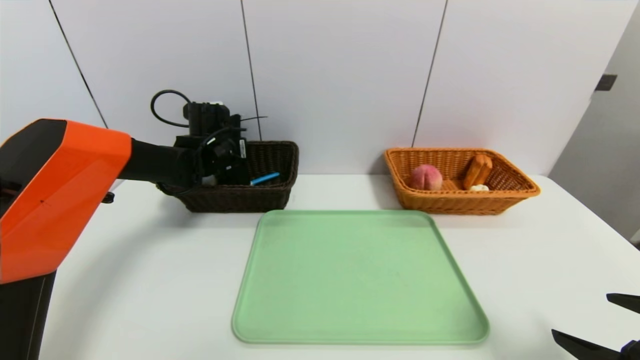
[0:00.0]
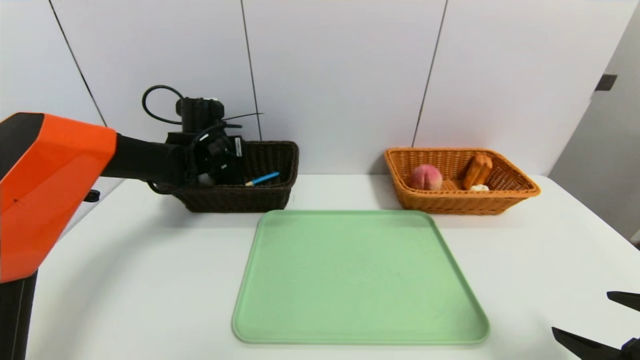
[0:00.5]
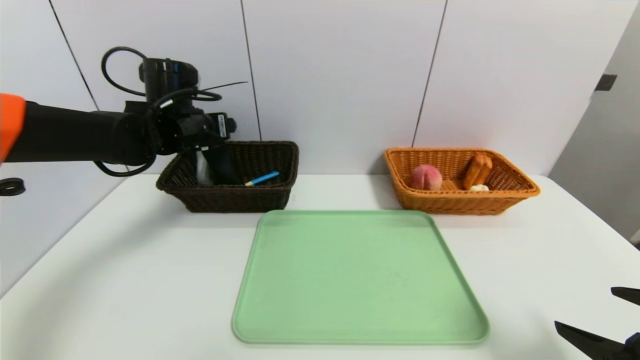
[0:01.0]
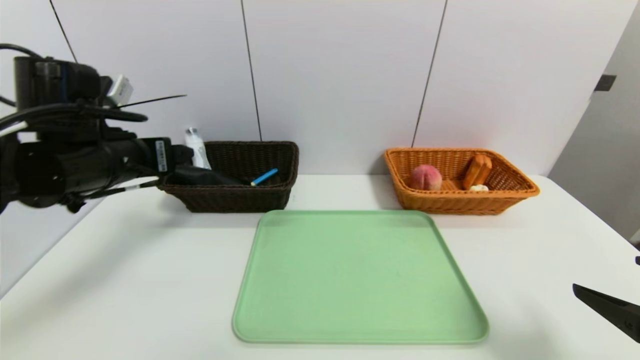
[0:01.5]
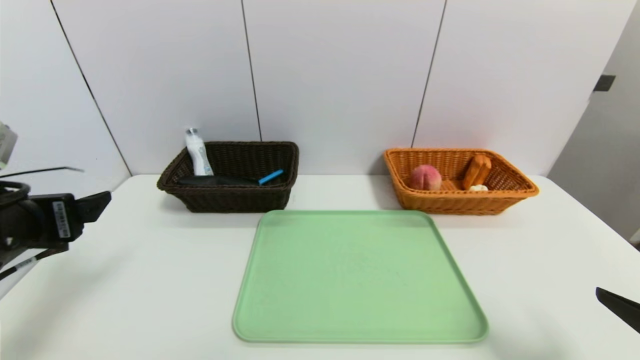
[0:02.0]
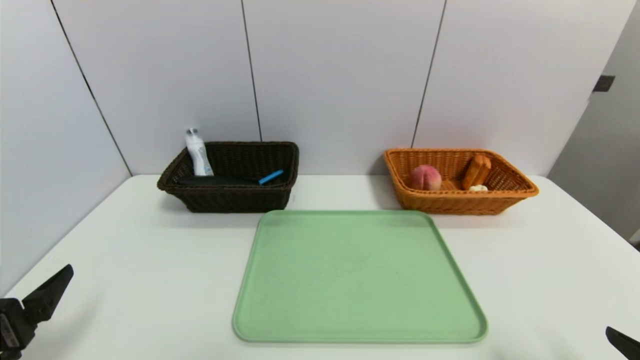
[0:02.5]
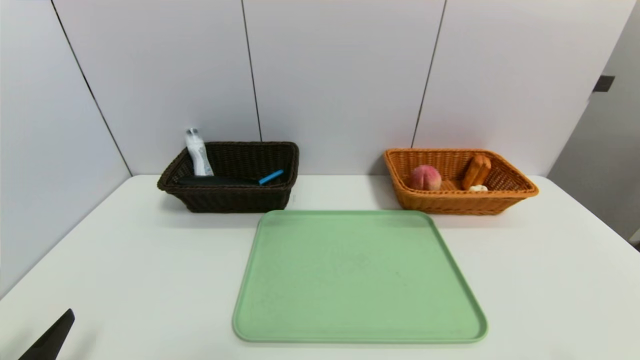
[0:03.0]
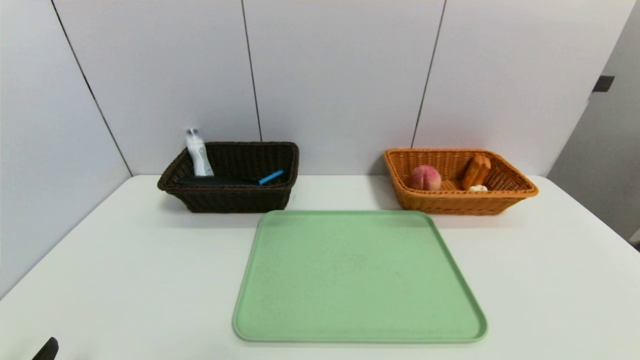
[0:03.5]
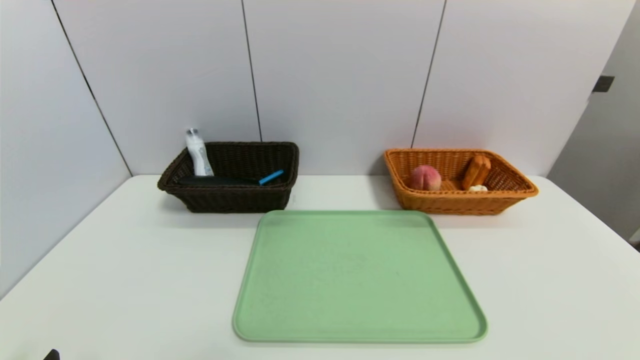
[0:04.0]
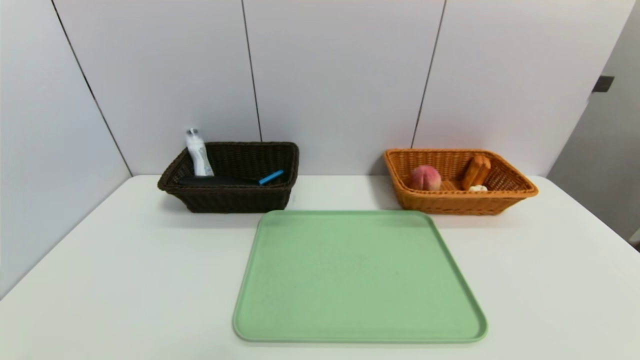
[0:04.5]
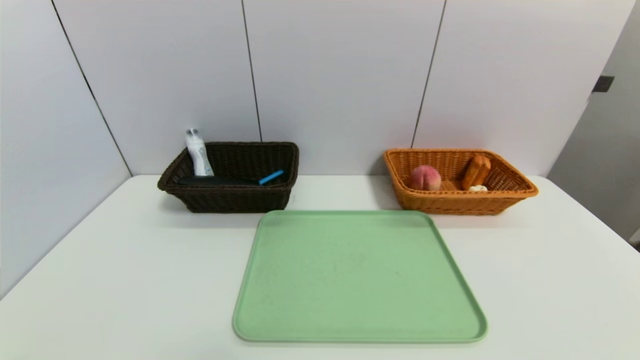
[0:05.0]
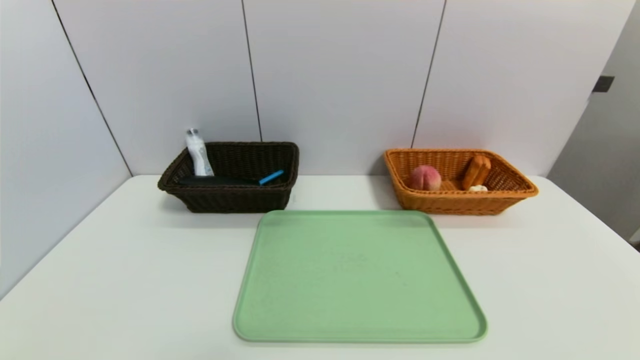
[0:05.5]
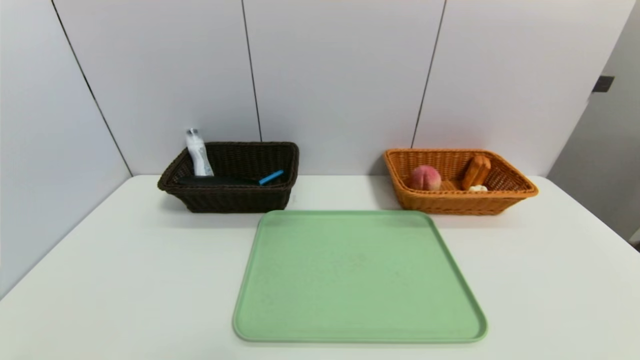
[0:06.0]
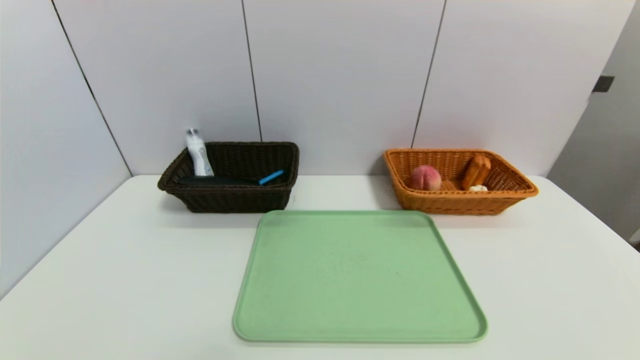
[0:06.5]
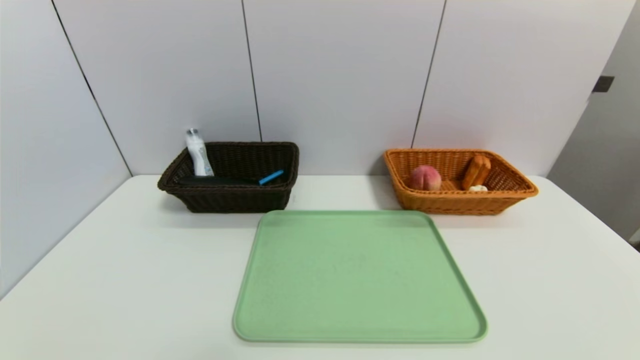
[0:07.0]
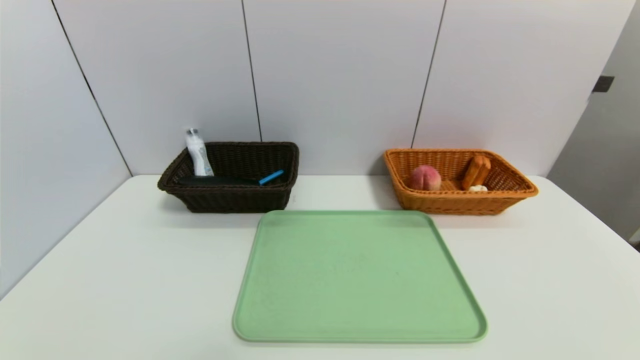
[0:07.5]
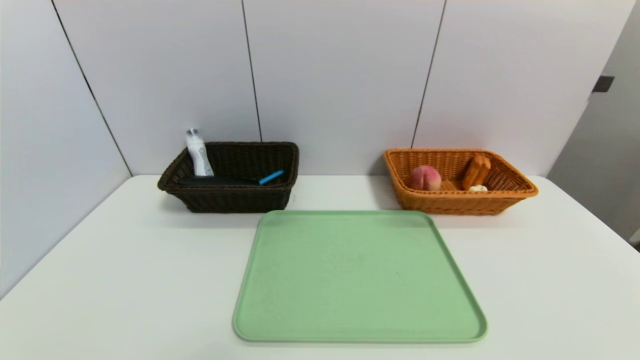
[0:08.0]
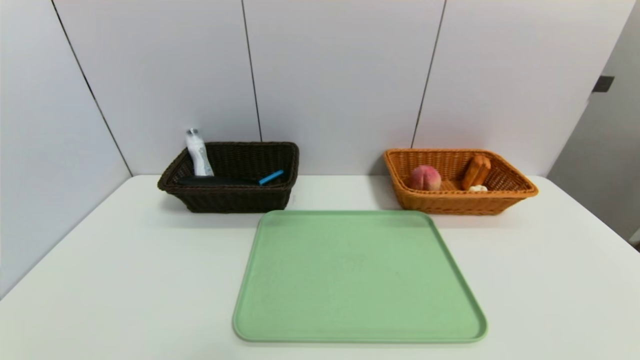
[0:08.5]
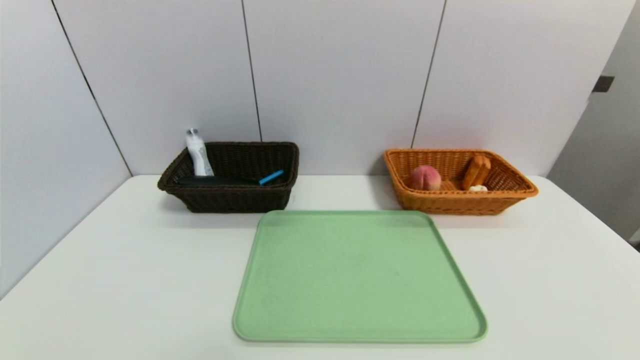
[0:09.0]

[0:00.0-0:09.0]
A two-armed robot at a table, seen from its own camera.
Task of the whole recording: place the food in the right basket with the right gripper, and place the non food items in the left basket with the left gripper.
0:00.0 to 0:02.0: The left gripper moves backward, approximately 30 cm, and opens.
0:02.0 to 0:04.5: The left gripper heads backward and downward, covering roughly 25 cm; the right gripper goes about 15 cm backward and downward.

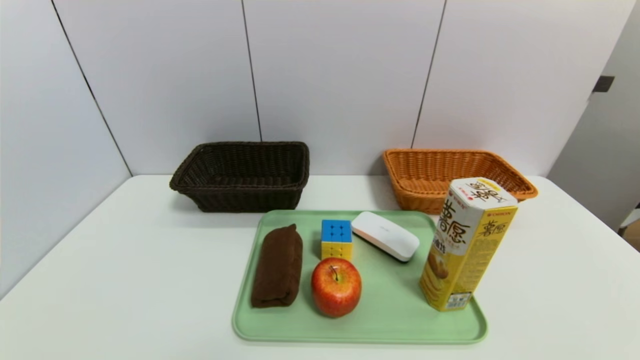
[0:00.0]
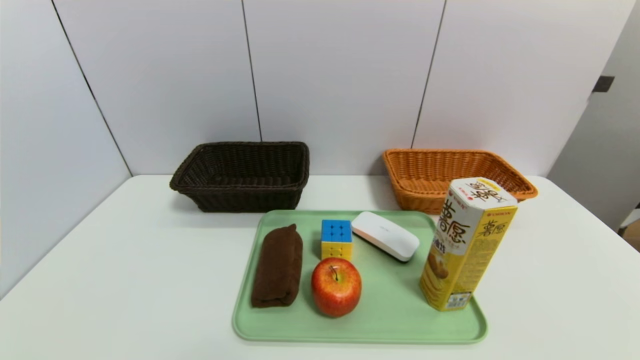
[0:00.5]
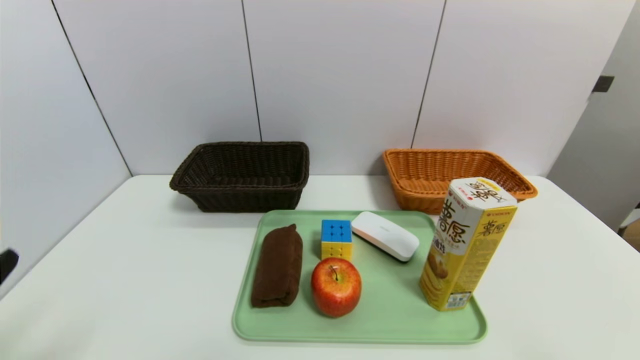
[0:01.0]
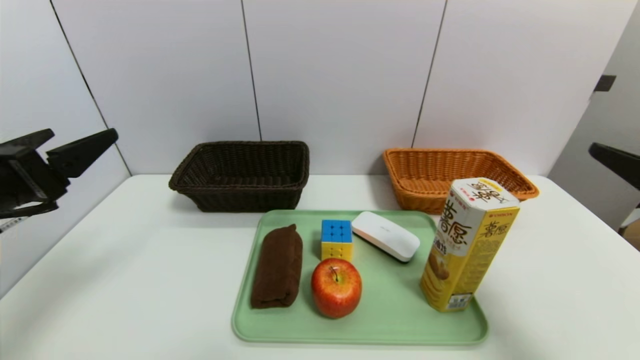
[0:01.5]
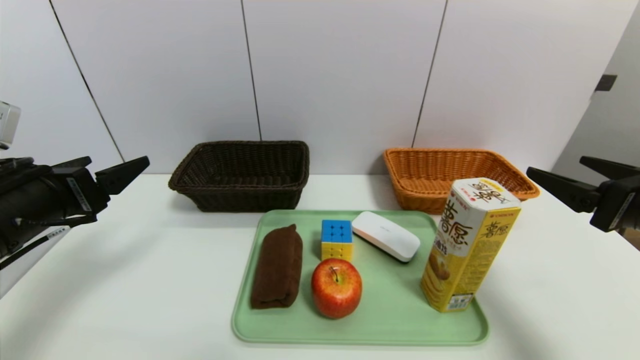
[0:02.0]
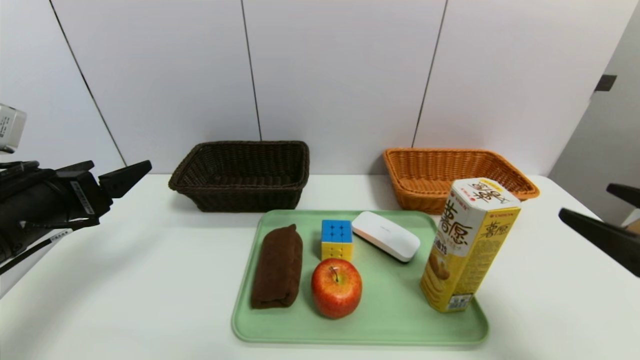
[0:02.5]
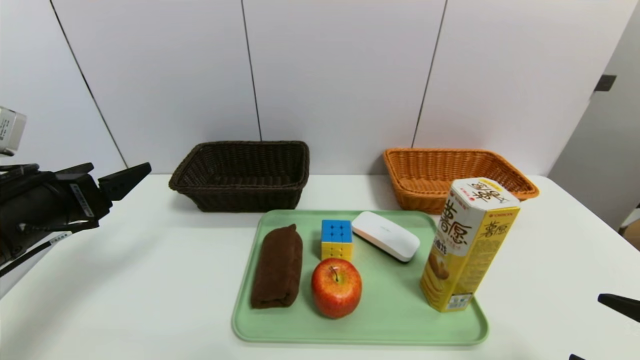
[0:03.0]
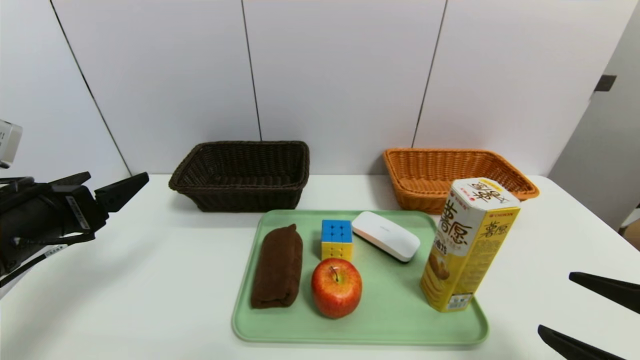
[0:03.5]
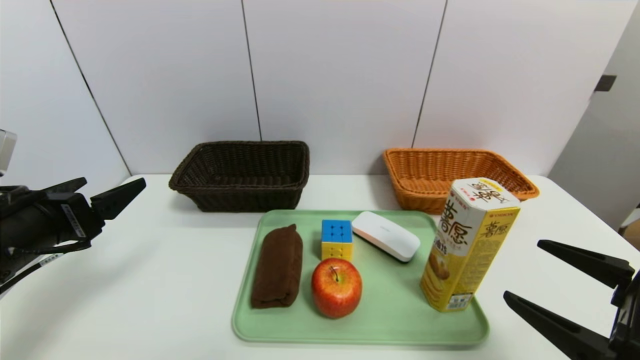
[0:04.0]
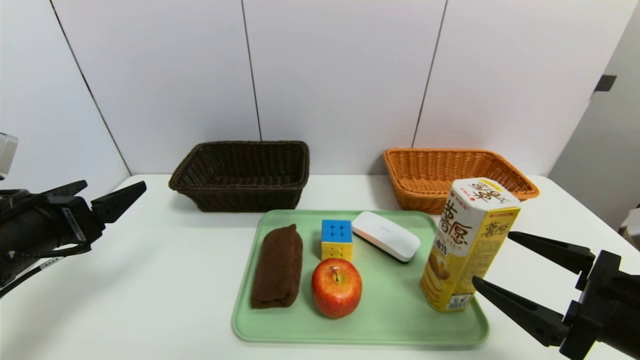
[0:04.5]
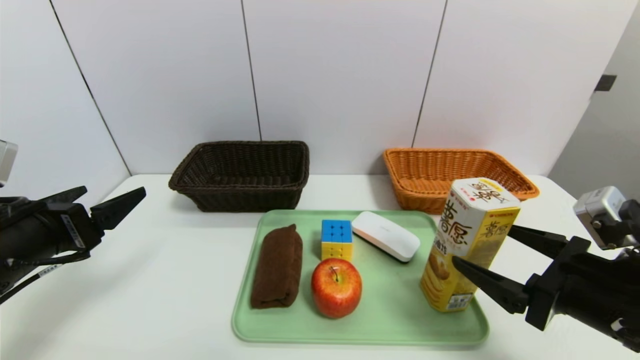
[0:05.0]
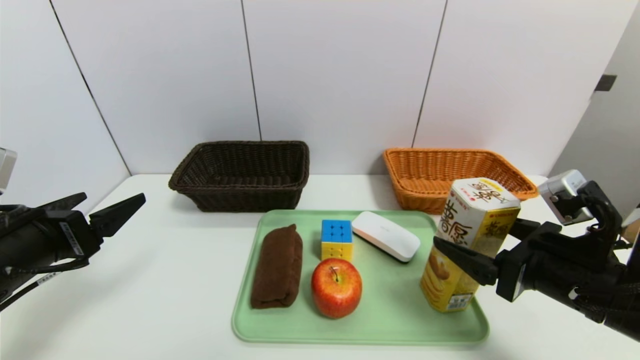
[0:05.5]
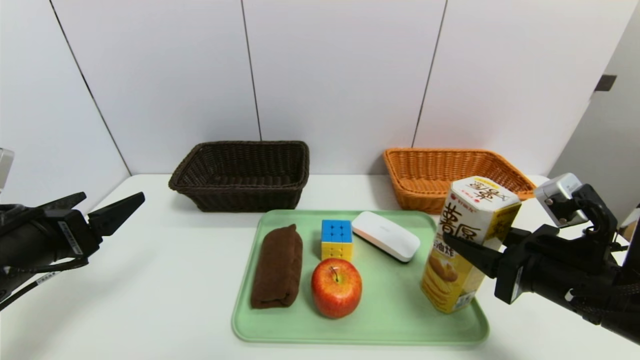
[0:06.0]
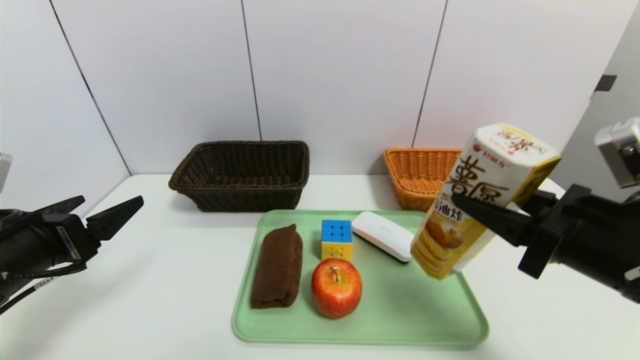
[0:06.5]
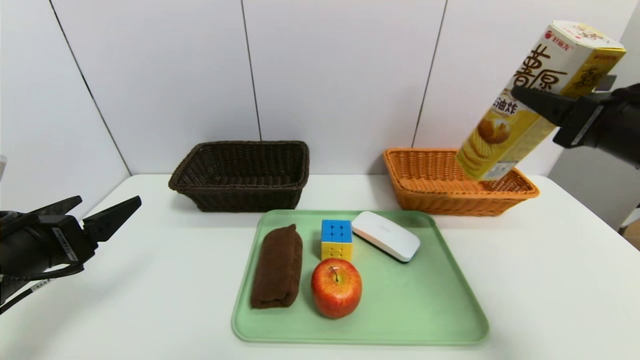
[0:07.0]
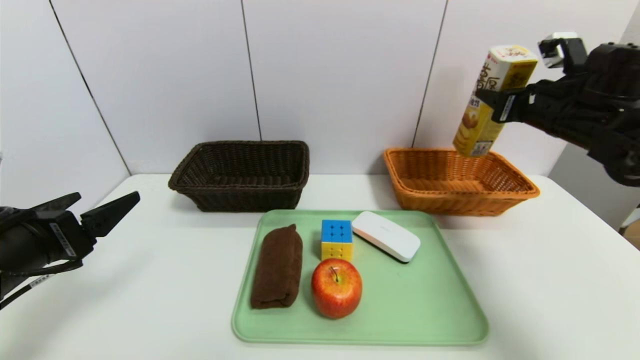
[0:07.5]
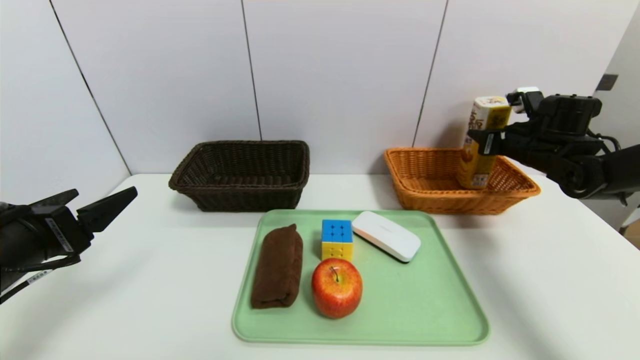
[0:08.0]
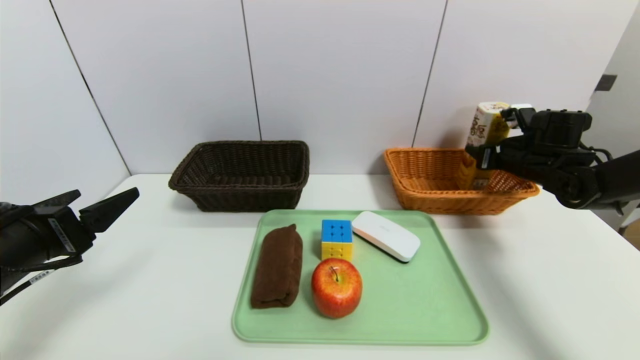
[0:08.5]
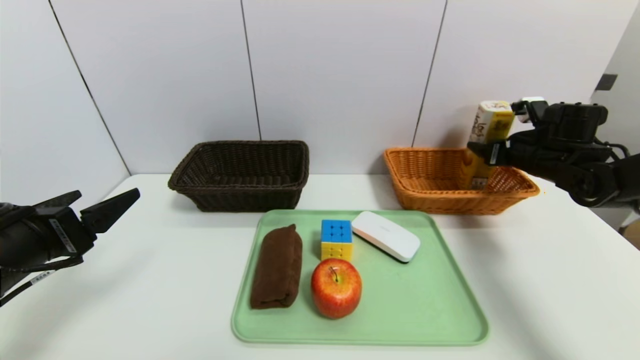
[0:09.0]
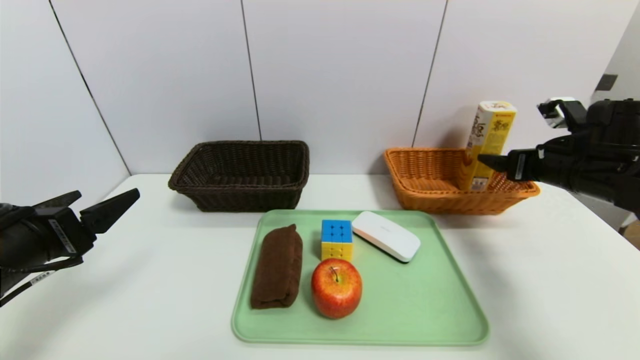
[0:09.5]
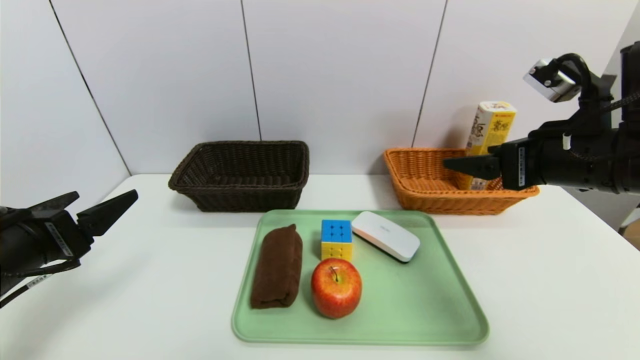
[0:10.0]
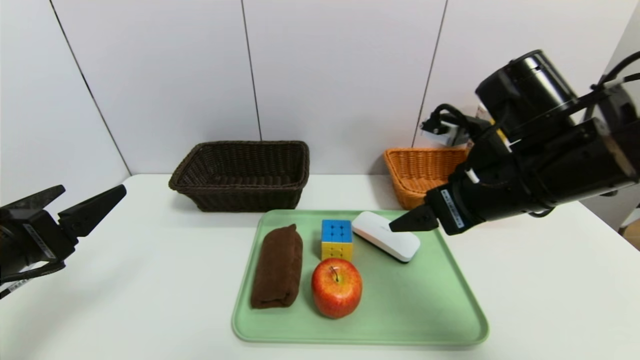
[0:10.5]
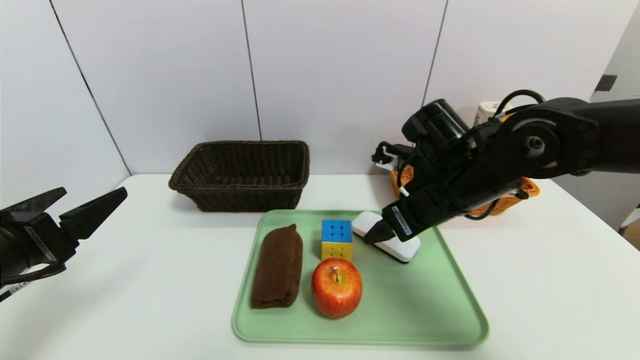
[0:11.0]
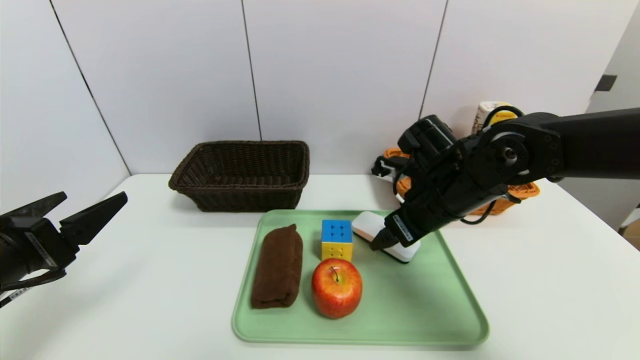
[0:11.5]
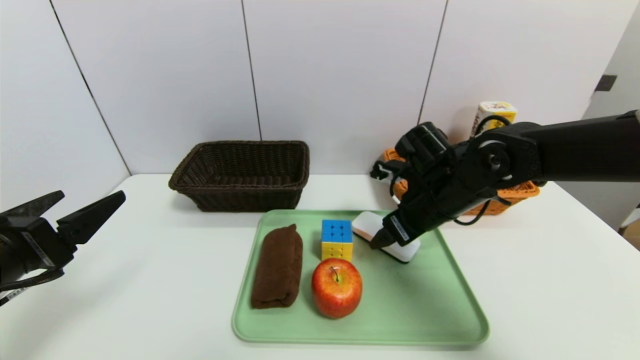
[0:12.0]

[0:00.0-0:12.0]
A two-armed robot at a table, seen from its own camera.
Task of the whole recording: place the food in the right basket with the right gripper, and place the non food items in the left basket with the left gripper.
Step, 0:00.0 to 0:09.5: Grasp the potato chips and put it in the right basket.
0:00.0 to 0:02.0: The two grippers go some 25 cm forward and upward.
0:02.0 to 0:04.0: The right gripper heads backward and downward, covering approximately 10 cm.
0:04.0 to 0:06.0: The right gripper moves forward, approximately 10 cm, and closes.
0:06.0 to 0:08.0: The right gripper travels forward and to the right by approximately 25 cm.
0:08.0 to 0:10.0: The right gripper shifts approximately 25 cm backward, to the left and upward, and opens up.
0:10.0 to 0:12.0: The right gripper is displaced downward, forward and to the left by some 15 cm.
